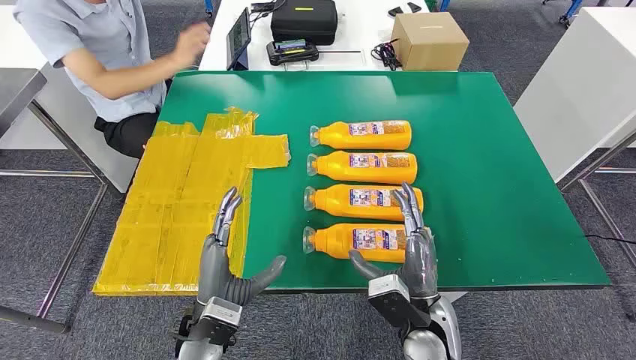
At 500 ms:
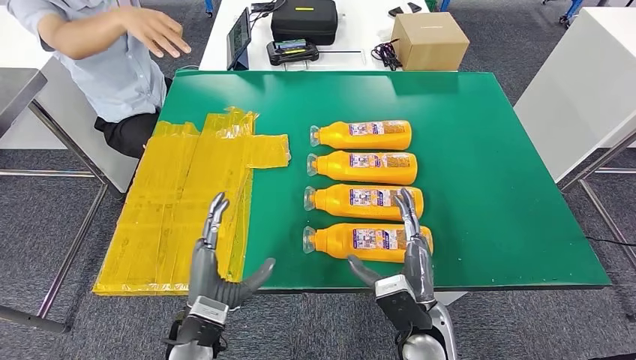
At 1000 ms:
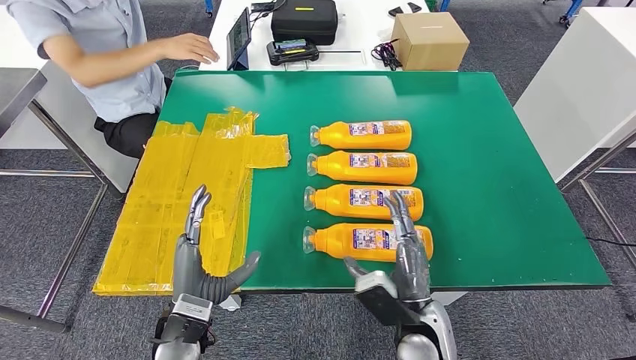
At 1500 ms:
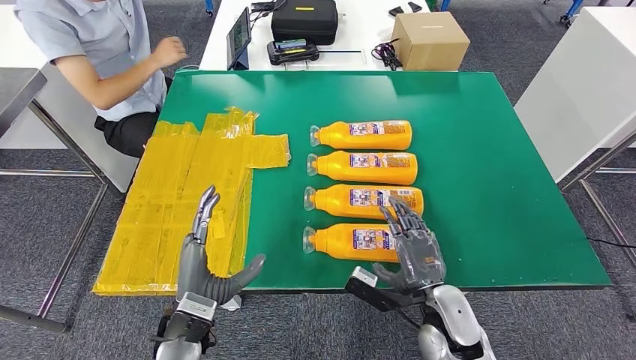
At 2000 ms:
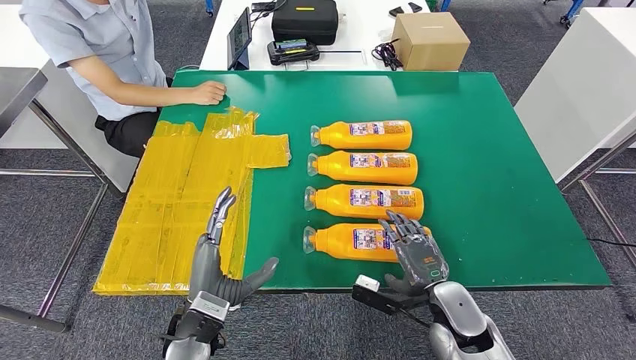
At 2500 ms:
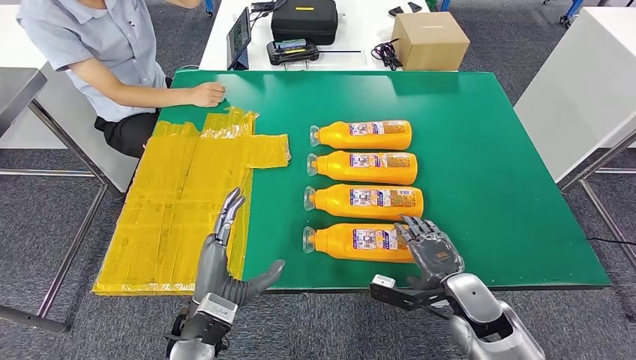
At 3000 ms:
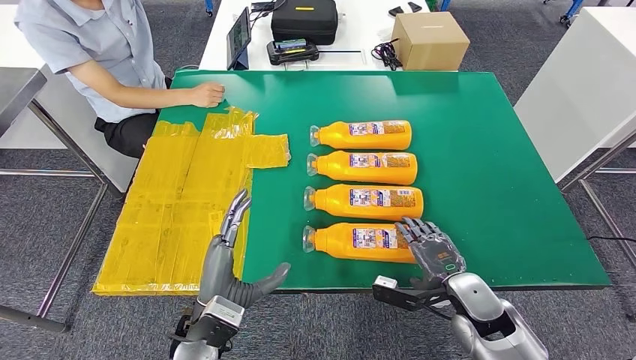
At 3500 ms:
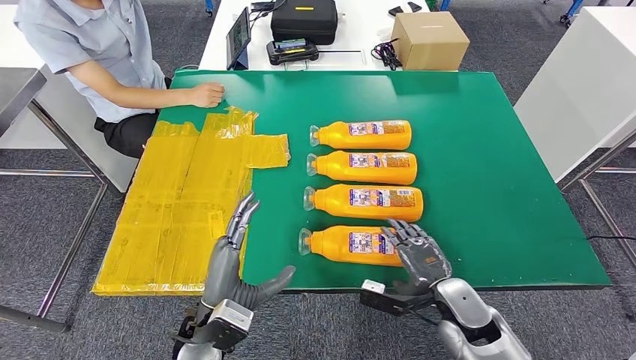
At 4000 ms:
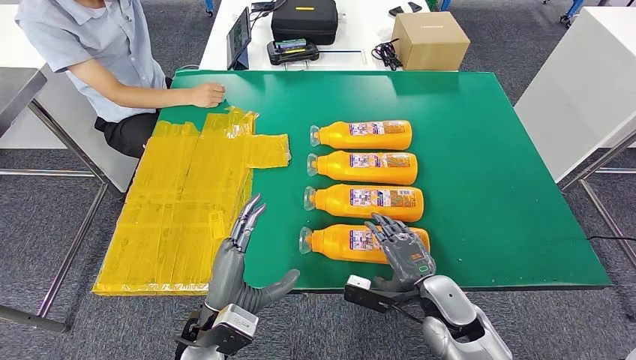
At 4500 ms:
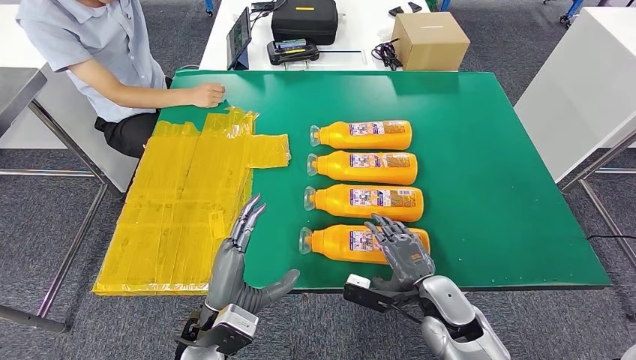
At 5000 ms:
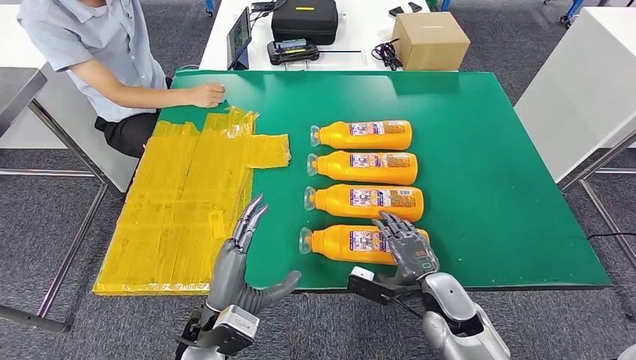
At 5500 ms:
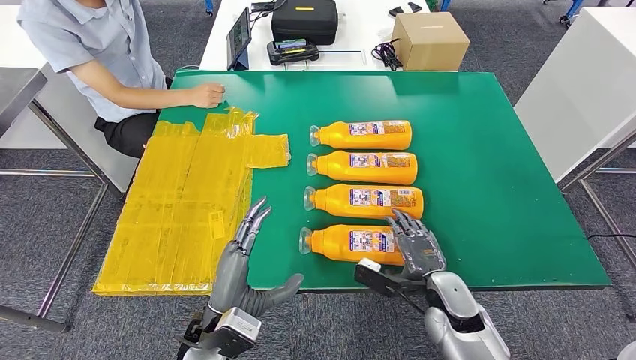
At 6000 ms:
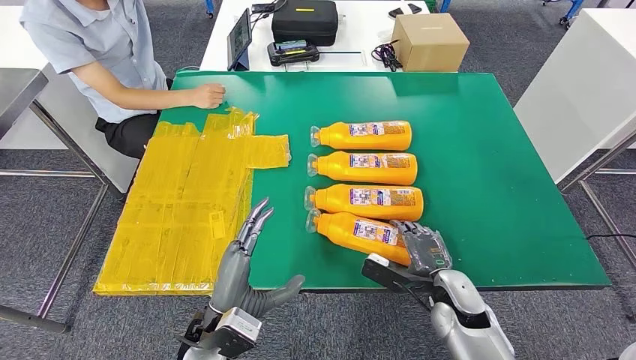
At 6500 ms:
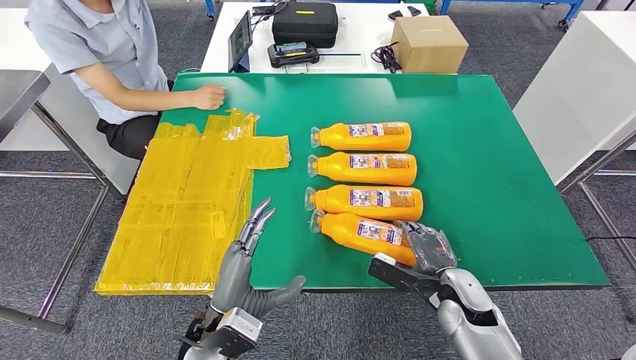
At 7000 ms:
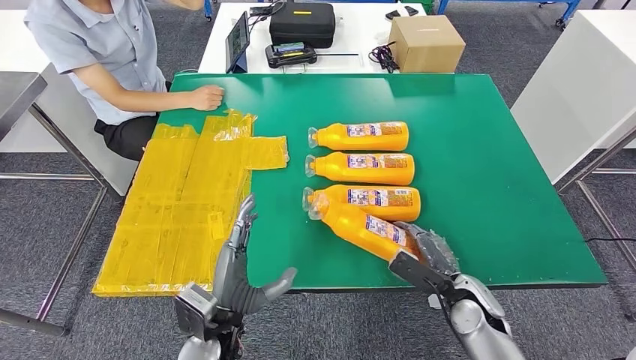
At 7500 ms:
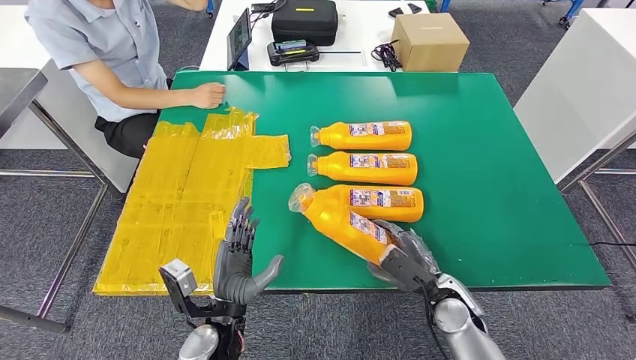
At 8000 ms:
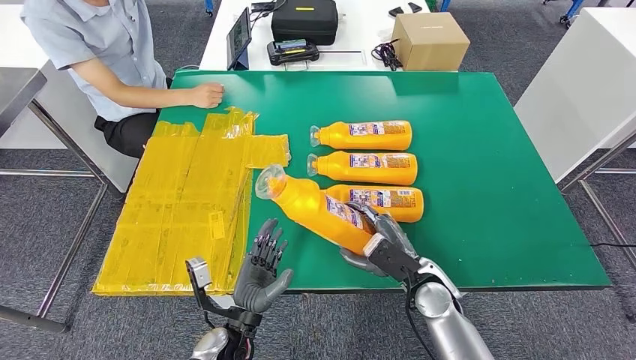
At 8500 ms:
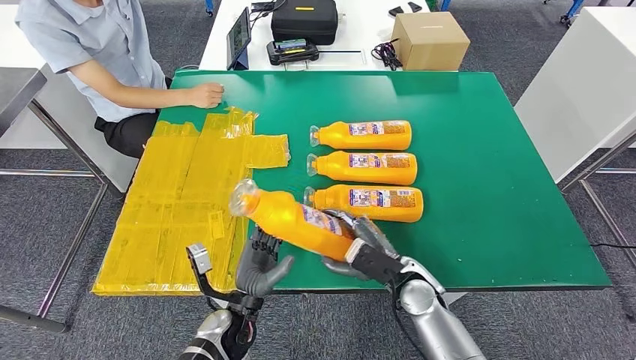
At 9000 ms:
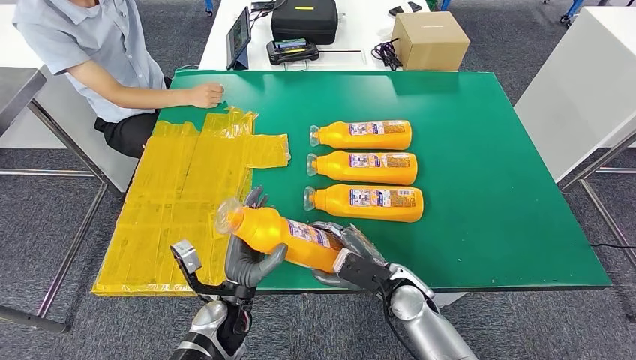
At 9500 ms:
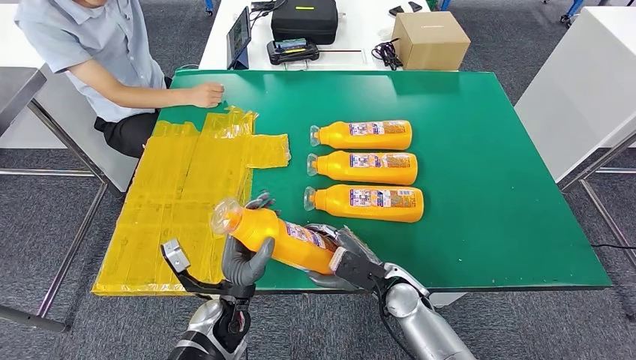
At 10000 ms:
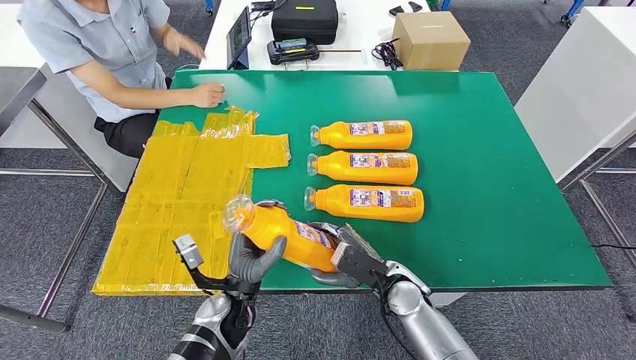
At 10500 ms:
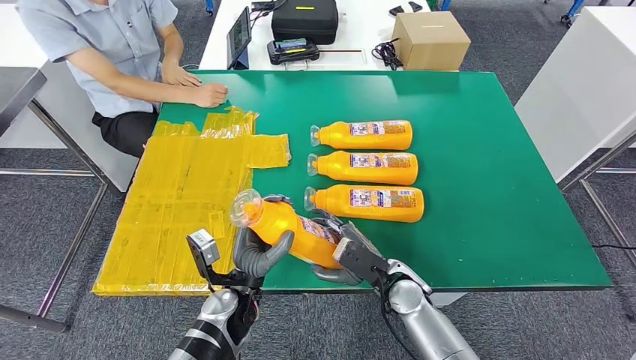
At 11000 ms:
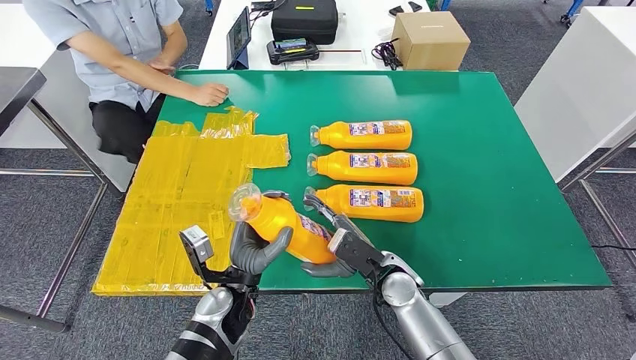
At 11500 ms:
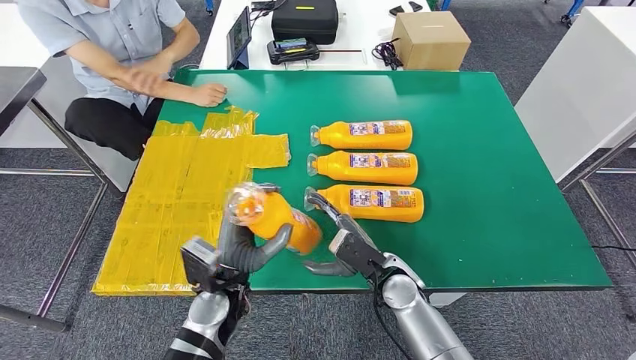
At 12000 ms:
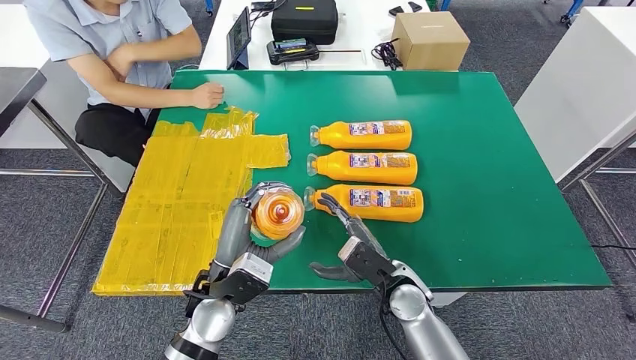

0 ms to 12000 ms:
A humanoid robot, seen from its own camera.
Step, 0 ms to 10500 ms: Take the fast-moving consumer goods bottle from the table.
2000 ms to 6000 ms: The hands move only a little.
6000 ms to 8000 ms: The right hand travels to the left by about 5 cm; the left hand travels downward by about 10 cm.
8000 ms to 10000 ms: The left hand shifts by roughly 5 cm; the right hand changes place by about 5 cm.
10000 ms to 12000 ms: The left hand is displaced upward by about 10 cm.

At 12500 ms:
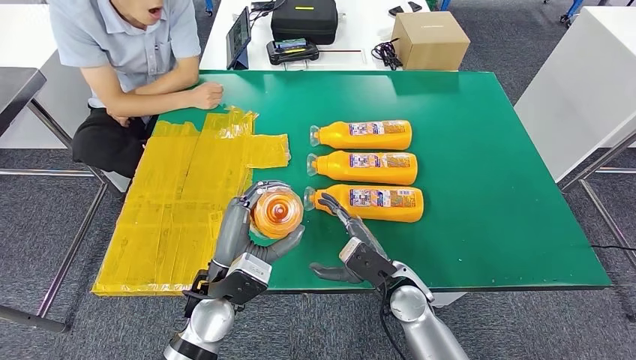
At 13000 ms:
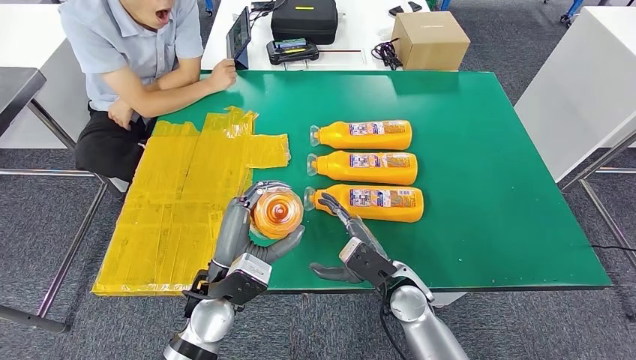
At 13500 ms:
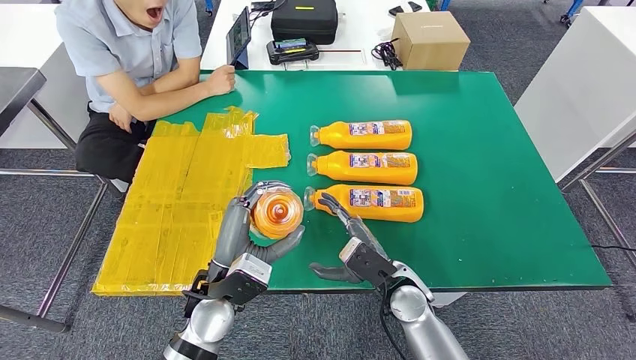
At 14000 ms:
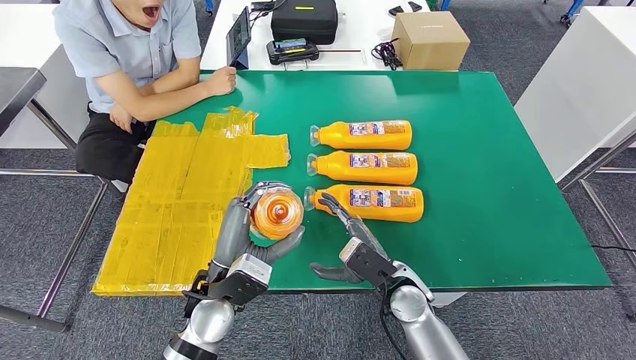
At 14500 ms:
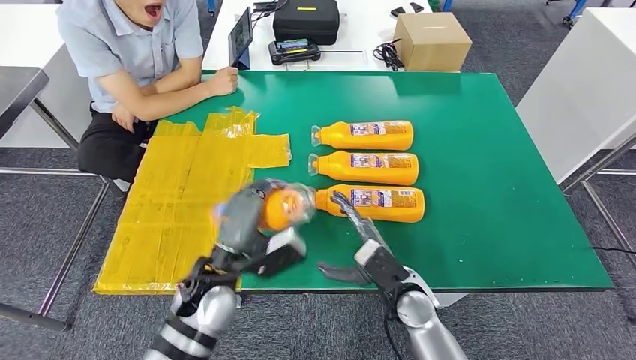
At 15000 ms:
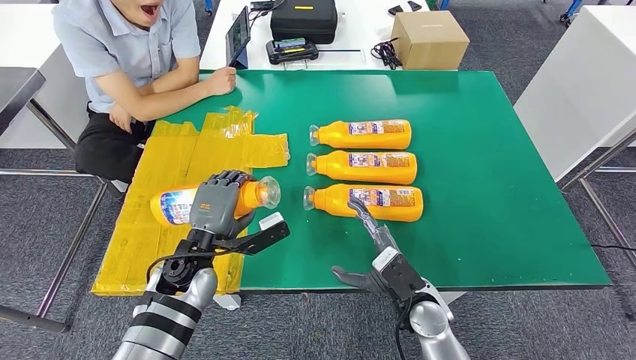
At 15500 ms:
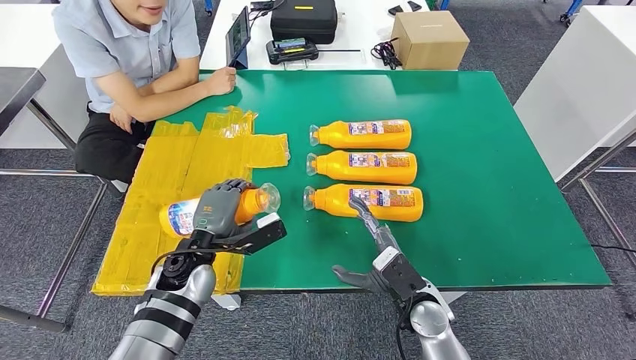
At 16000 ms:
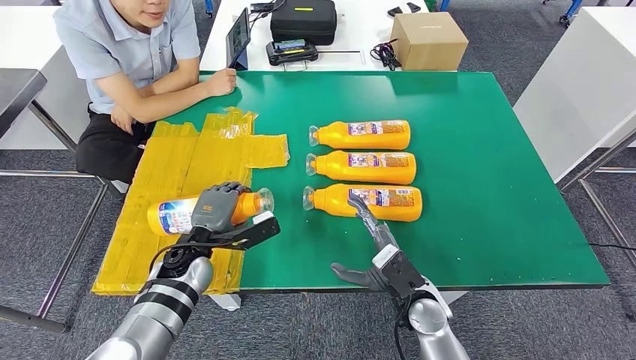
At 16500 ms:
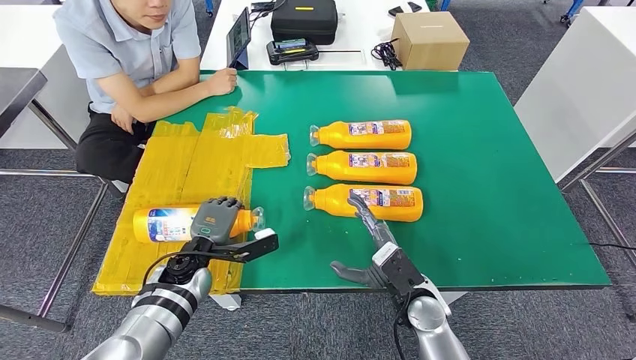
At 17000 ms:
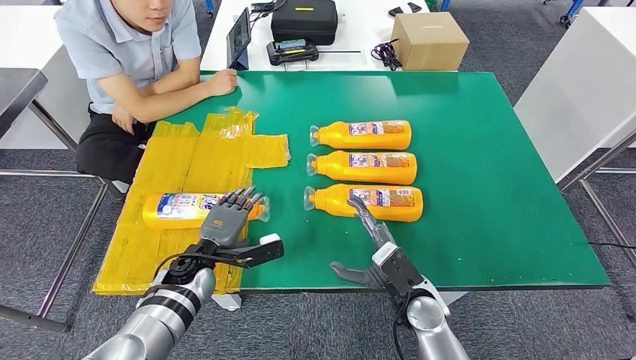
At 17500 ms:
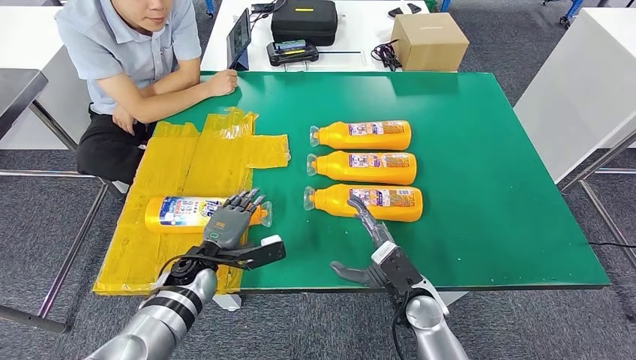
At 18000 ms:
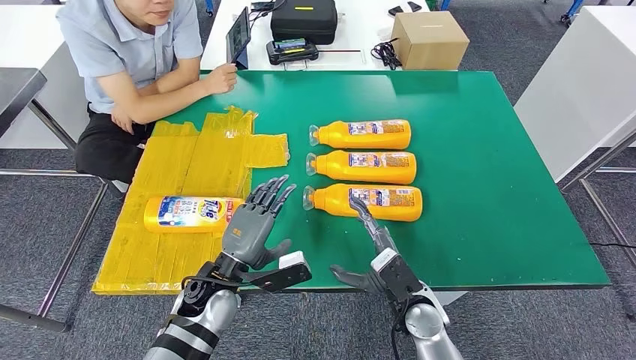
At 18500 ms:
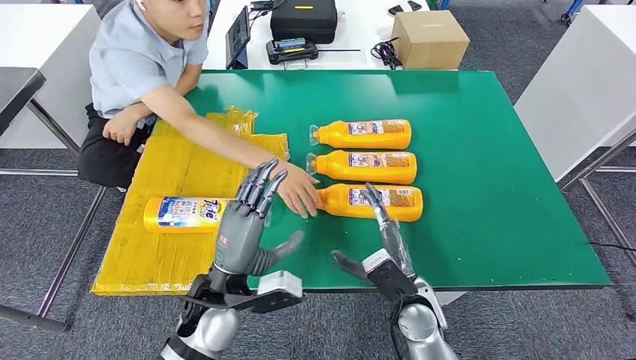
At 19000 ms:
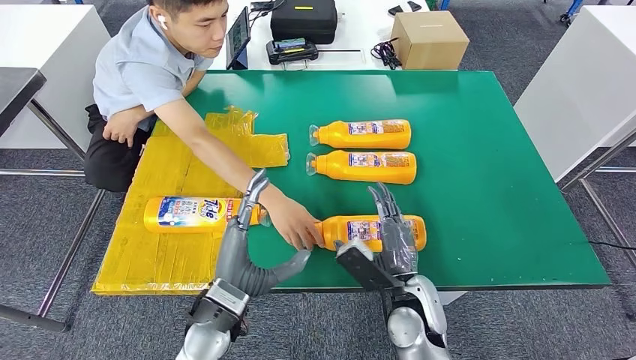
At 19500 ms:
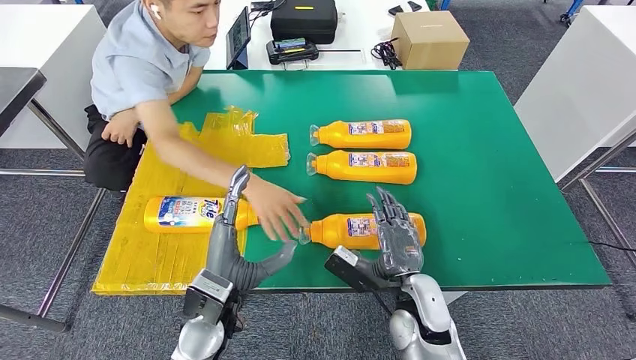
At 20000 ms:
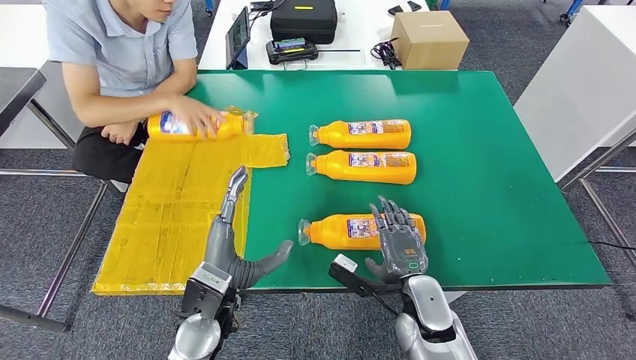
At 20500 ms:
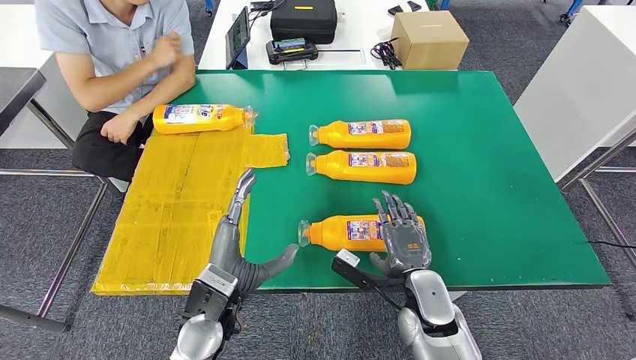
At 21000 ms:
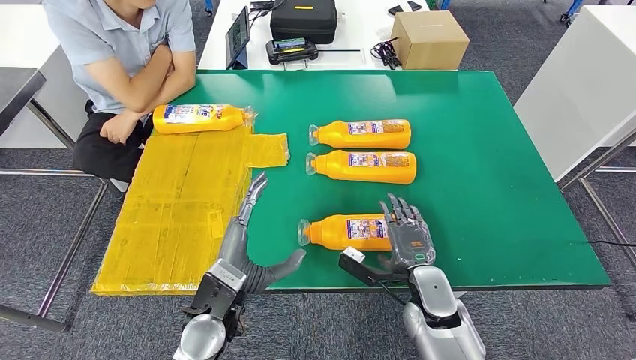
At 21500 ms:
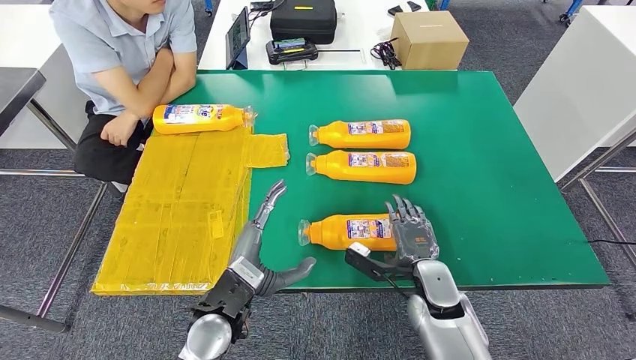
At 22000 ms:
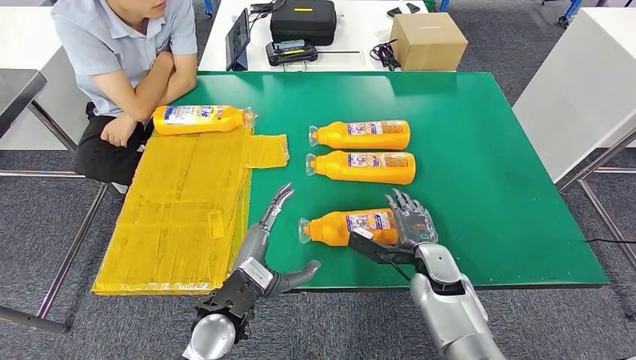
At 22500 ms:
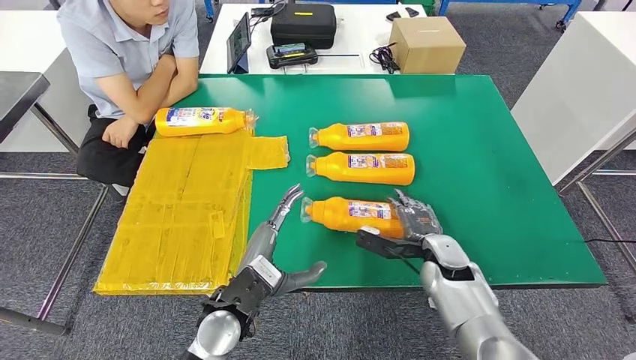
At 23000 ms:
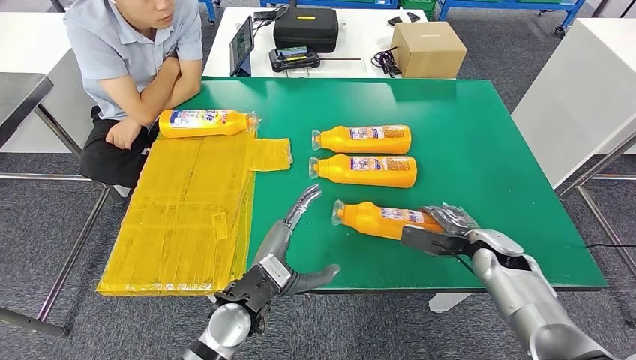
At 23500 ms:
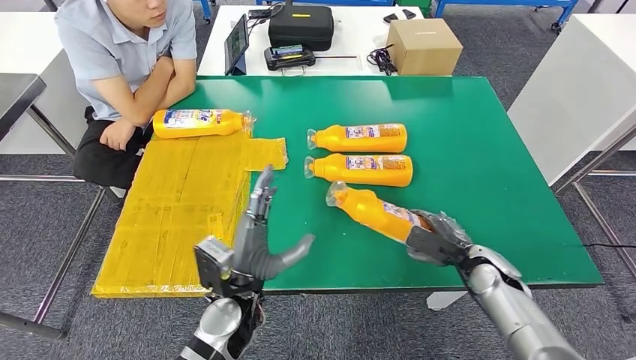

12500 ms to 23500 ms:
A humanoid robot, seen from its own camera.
Step, 12500 ms to 17500 ms: Flip the fast-moving consumer goods bottle to the front side.
14500 ms to 16000 ms: The left hand shifts roughly 10 cm forward, downward and to the left.
16000 ms to 18000 ms: The left hand moves backward and to the right, some 10 cm.
18000 ms to 20000 ms: The left hand shifts about 5 cm backward.
20000 ms to 21500 ms: There are only small adjustments of the hands.
